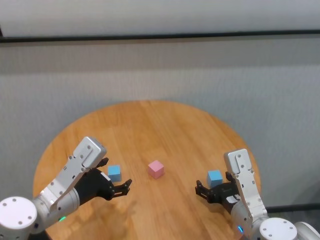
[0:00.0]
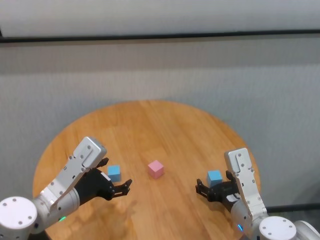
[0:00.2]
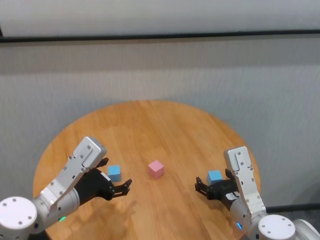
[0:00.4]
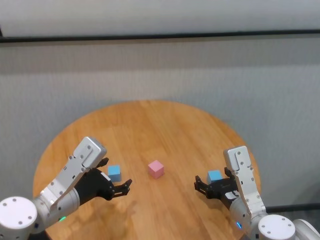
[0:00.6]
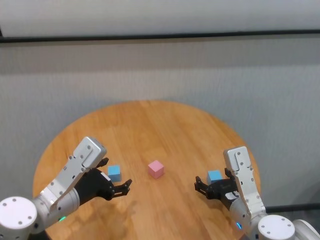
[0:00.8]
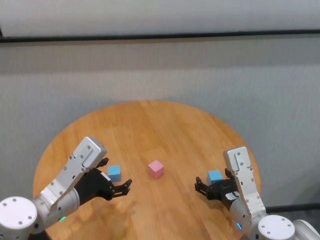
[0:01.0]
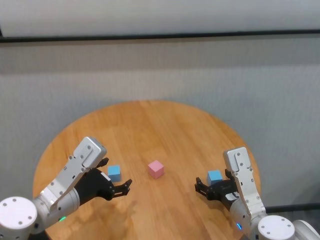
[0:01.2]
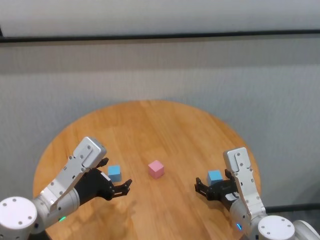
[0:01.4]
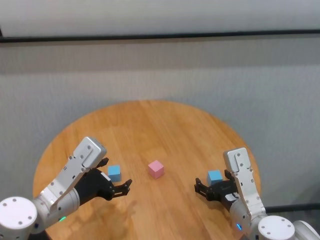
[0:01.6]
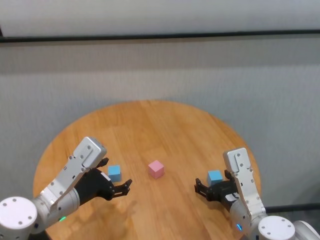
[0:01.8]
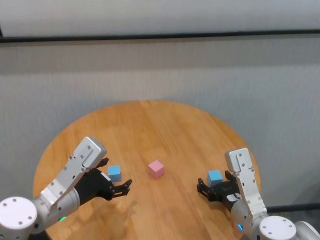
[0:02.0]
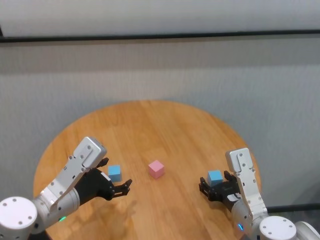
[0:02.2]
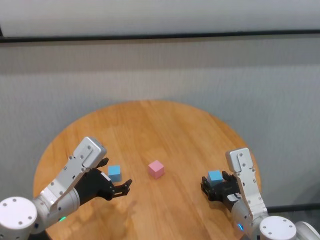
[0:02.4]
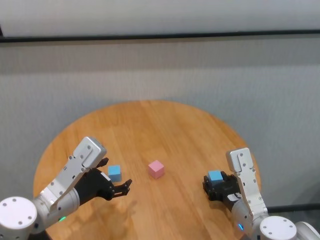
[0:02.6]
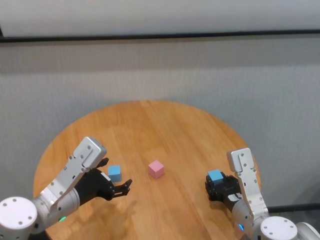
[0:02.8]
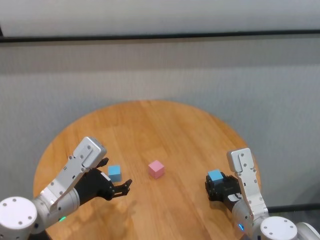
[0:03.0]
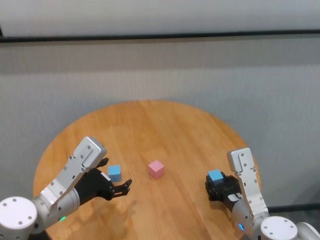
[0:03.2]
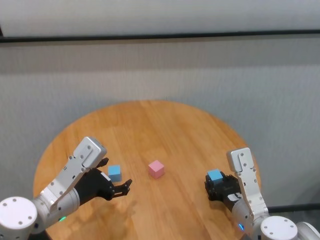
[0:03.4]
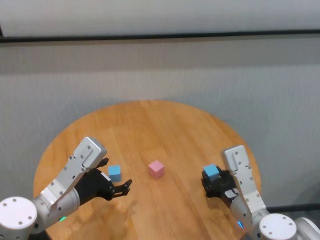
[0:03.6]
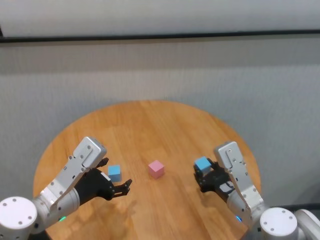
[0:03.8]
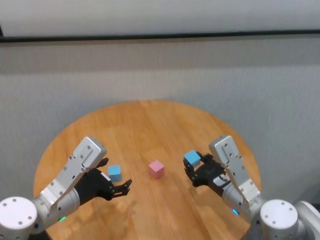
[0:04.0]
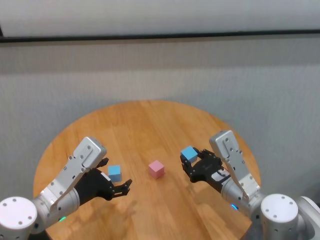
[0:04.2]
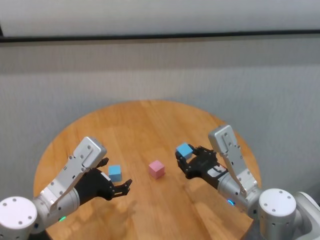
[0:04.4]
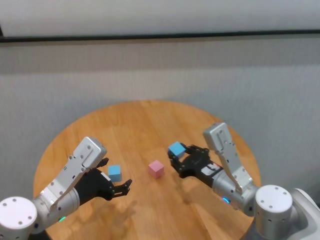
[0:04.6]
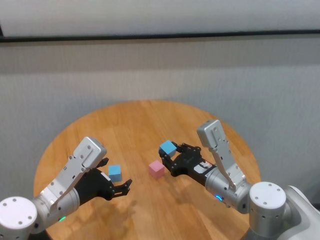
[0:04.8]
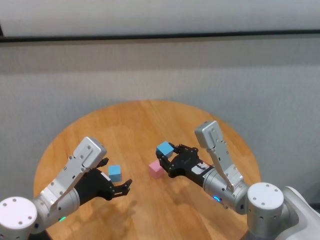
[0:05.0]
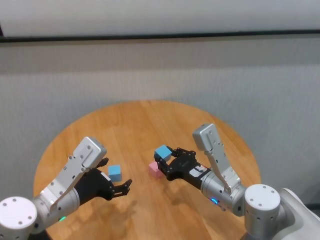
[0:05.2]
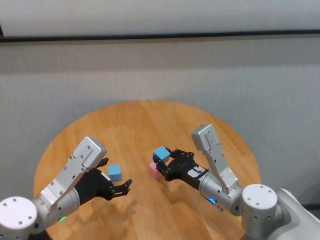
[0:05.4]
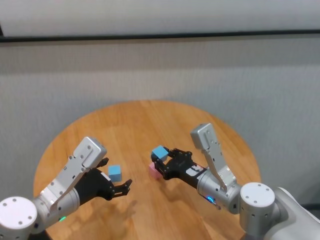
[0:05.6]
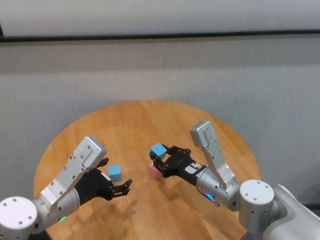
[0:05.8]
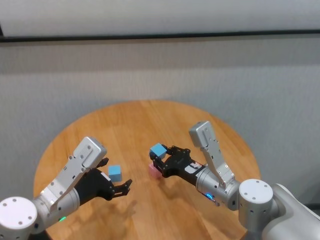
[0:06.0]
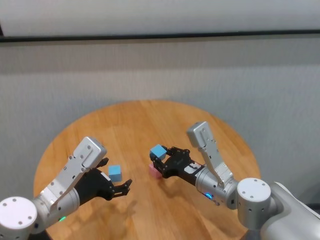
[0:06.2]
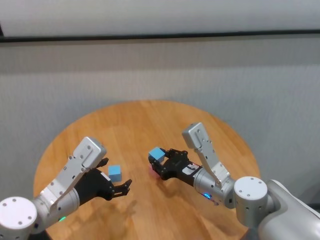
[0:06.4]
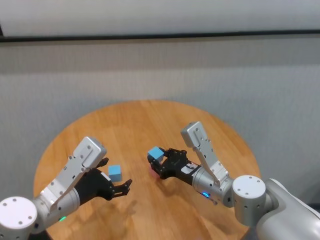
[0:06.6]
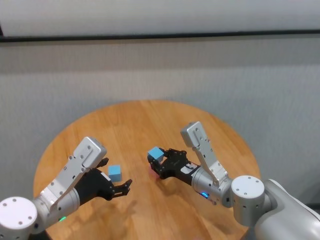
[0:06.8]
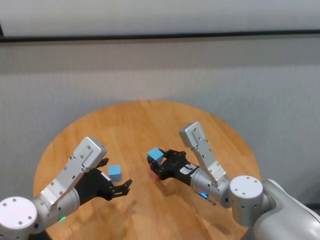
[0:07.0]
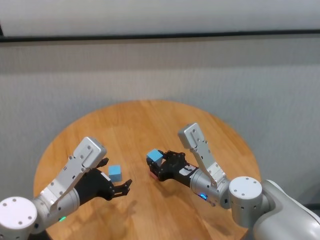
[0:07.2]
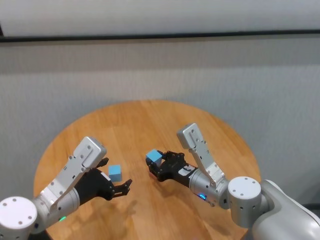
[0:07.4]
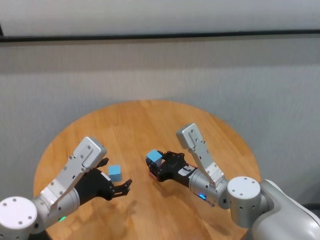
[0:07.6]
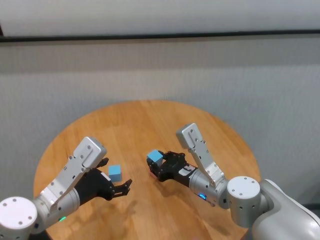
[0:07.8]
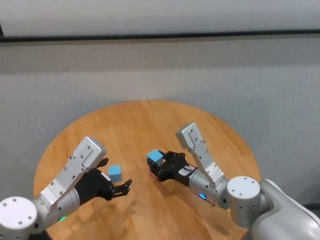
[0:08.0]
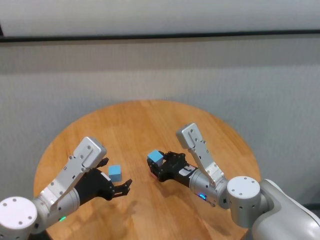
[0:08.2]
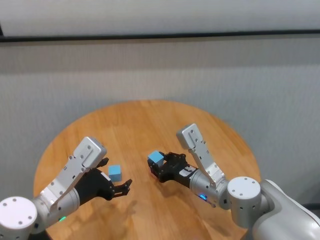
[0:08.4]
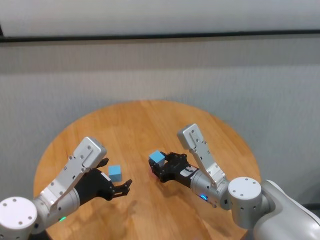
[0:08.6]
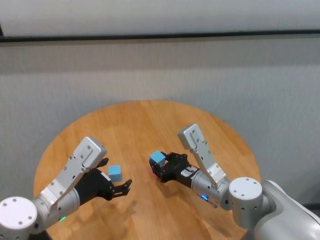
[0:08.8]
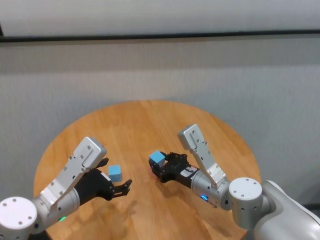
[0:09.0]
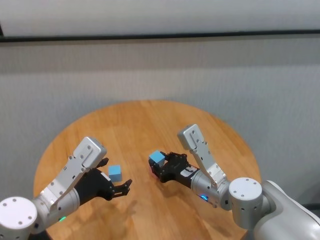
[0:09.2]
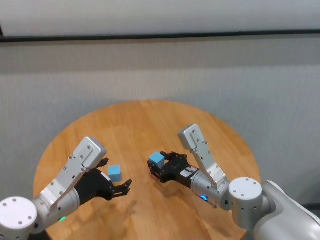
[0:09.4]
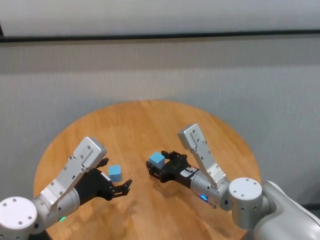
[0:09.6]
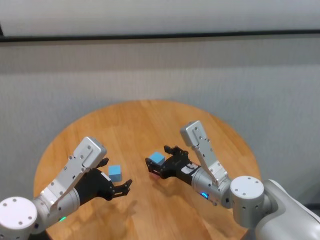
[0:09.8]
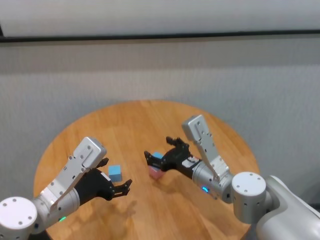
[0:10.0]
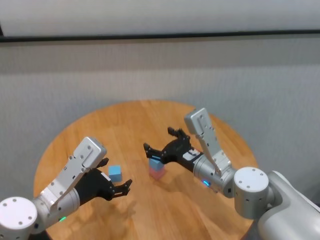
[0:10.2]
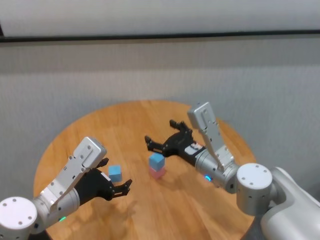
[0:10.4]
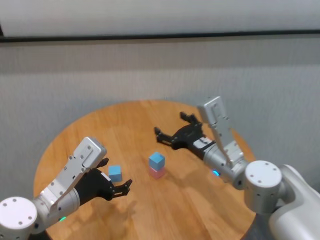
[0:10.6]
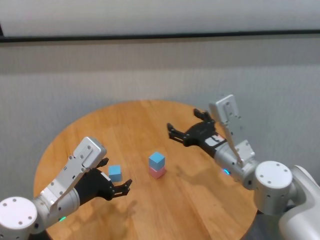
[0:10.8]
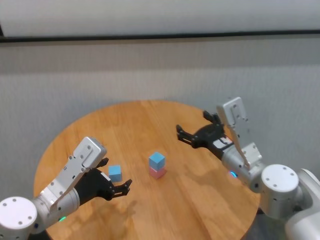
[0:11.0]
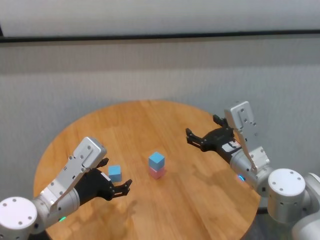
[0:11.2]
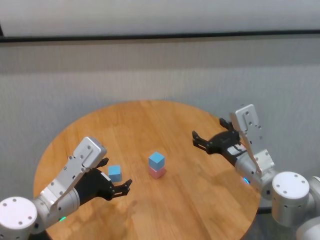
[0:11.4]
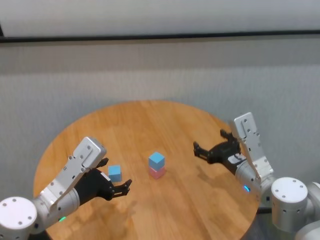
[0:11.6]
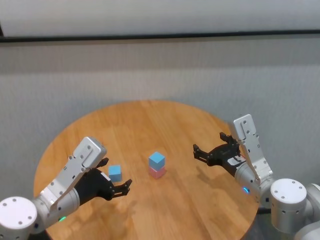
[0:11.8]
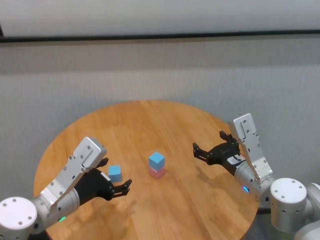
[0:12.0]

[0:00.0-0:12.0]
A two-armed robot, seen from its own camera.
Task of the whole recording: stack building blocks on the table.
Step, 0:00.0 to 0:02.6: Grasp the blue building block with right gripper.
Step, 0:03.0 to 0:09.6: Place the blue building block on the pink building blocks with right gripper.

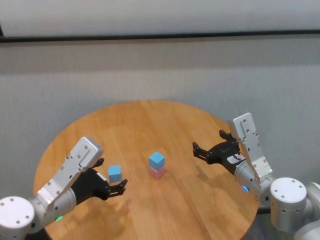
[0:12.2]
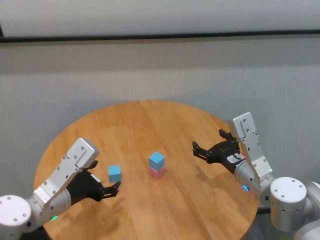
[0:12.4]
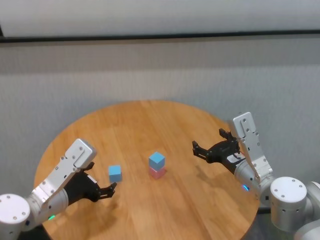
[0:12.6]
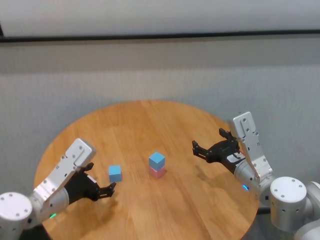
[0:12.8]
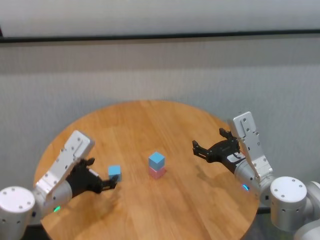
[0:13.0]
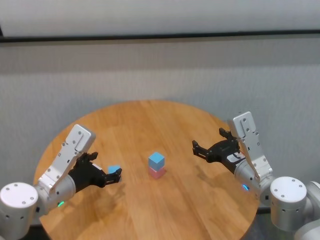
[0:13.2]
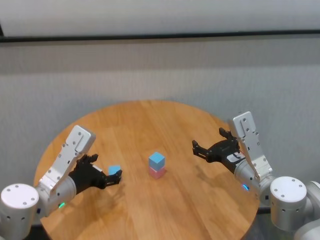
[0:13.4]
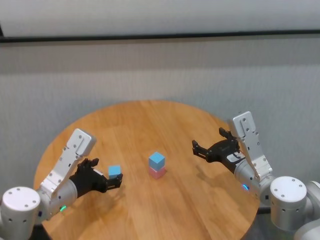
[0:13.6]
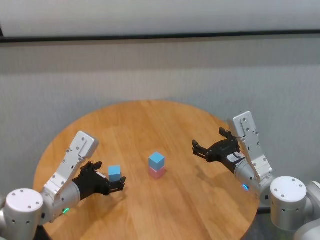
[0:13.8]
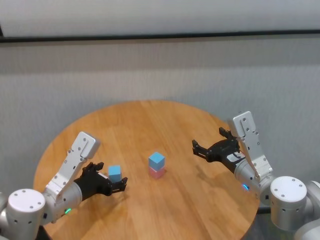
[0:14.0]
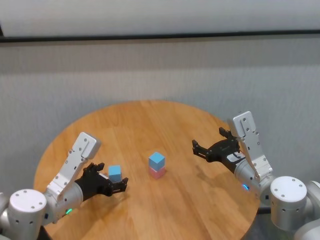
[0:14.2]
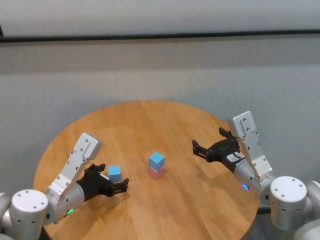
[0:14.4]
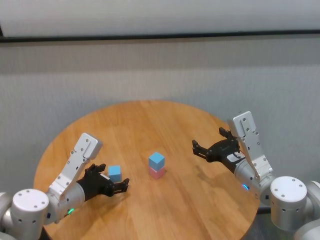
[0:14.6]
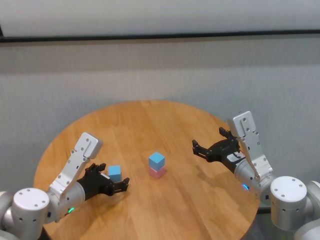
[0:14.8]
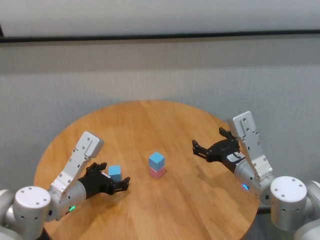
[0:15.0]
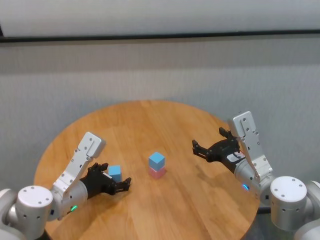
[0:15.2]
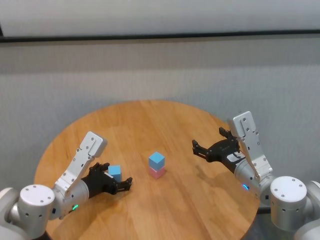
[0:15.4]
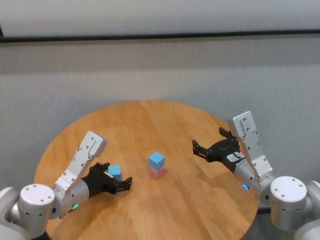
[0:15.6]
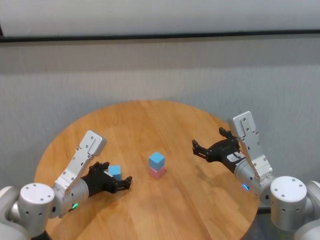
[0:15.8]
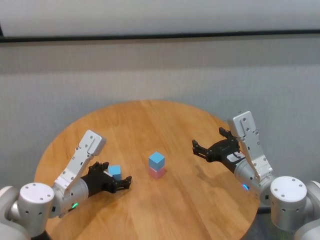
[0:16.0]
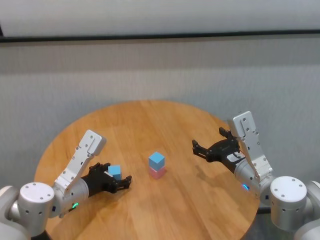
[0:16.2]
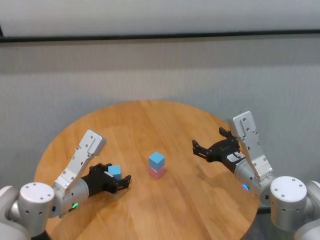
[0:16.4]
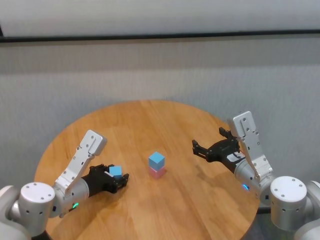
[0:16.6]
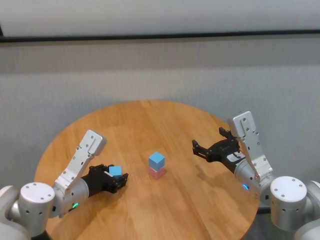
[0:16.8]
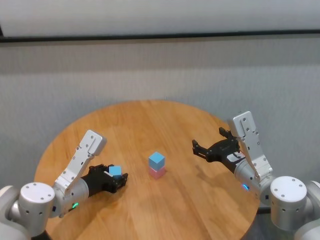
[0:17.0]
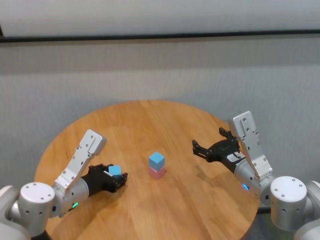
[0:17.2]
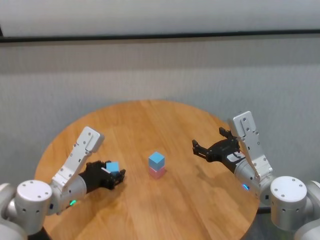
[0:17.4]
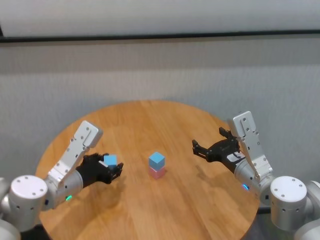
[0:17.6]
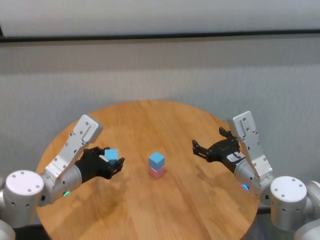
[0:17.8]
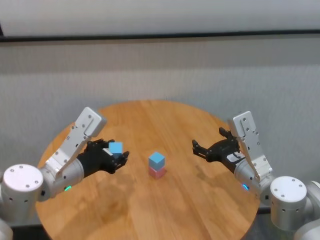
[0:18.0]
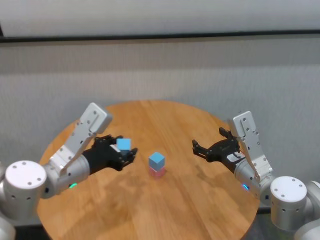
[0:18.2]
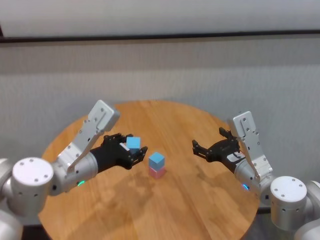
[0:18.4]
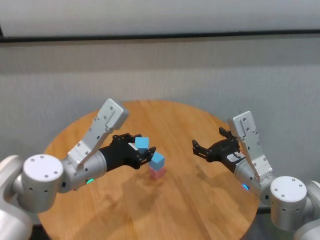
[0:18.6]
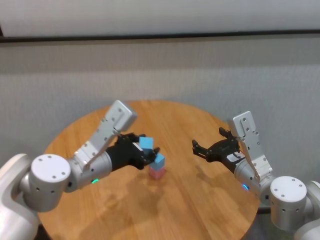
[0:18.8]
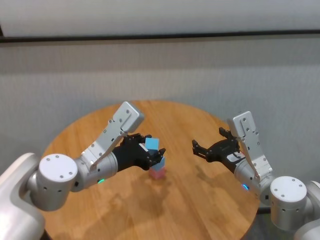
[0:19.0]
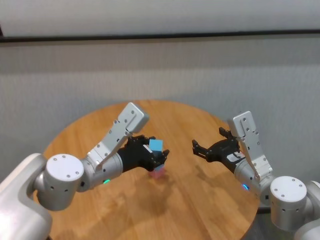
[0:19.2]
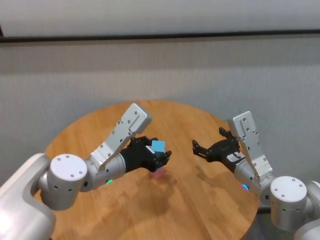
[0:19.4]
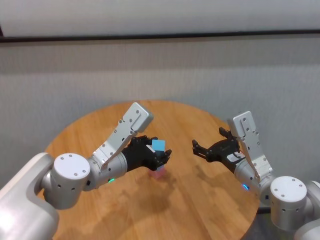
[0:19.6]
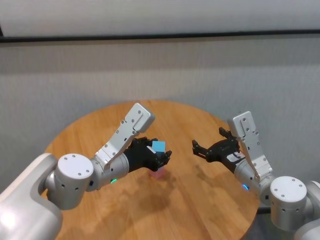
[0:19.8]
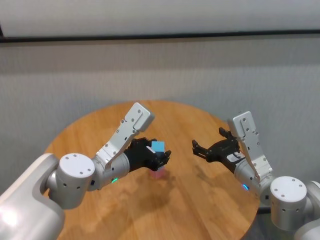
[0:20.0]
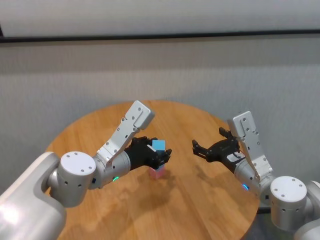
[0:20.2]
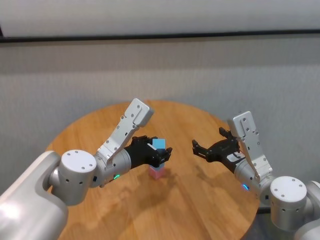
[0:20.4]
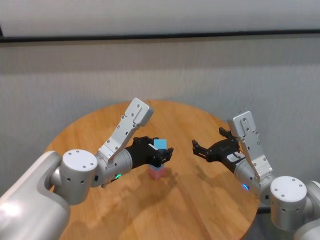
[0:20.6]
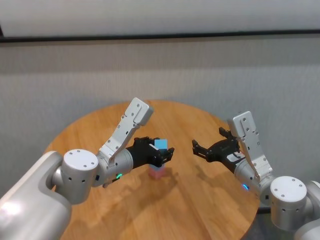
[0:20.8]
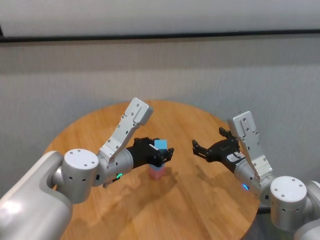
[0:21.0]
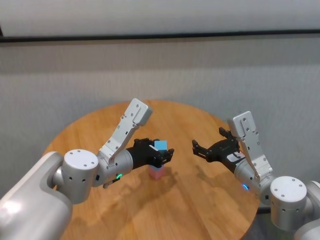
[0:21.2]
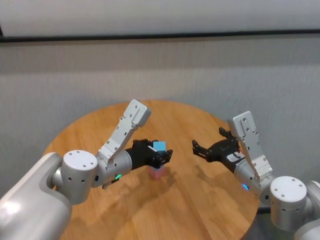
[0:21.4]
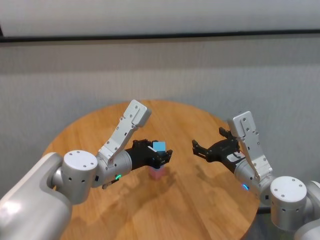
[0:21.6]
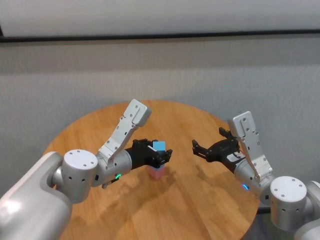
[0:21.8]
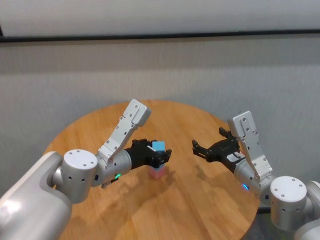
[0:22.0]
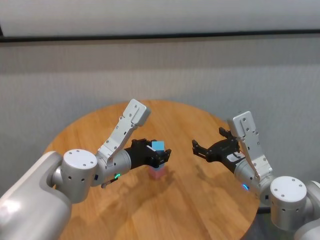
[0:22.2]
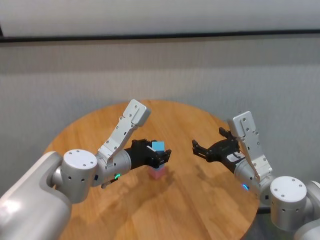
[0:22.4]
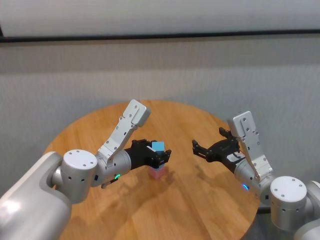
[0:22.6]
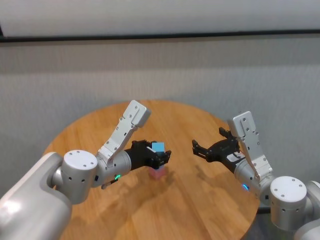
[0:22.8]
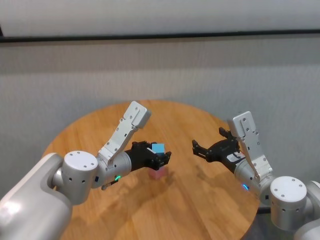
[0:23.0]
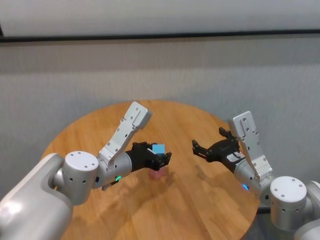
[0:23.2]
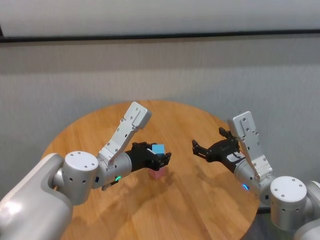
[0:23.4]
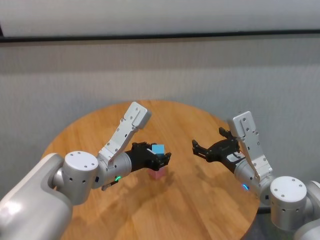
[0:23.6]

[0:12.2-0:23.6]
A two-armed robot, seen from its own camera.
Task of the whole recording: stack building blocks on the table.
Step, 0:12.2 to 0:16.6: Grasp the blue building block with left gripper.
